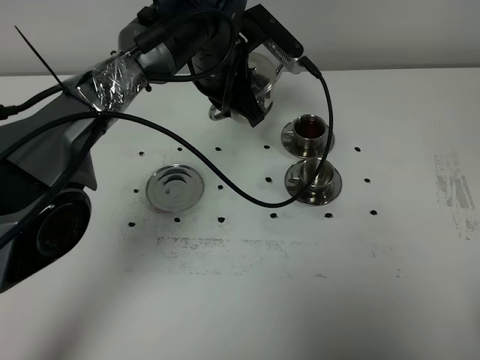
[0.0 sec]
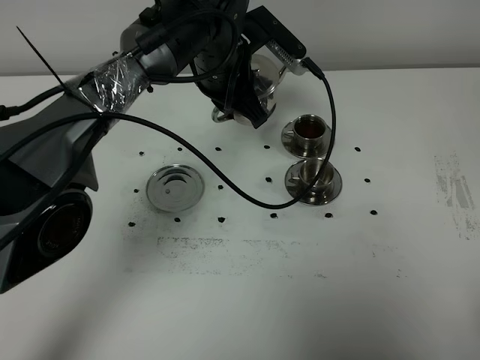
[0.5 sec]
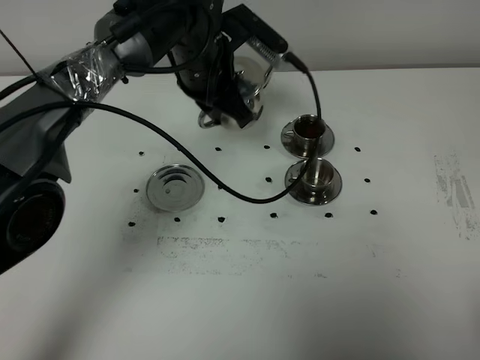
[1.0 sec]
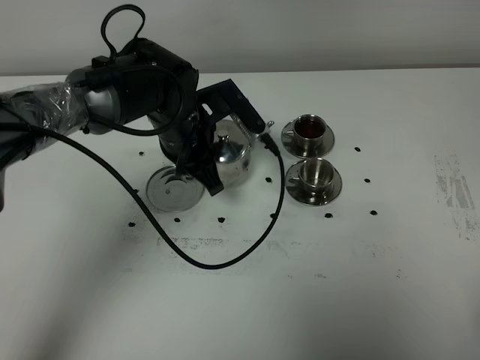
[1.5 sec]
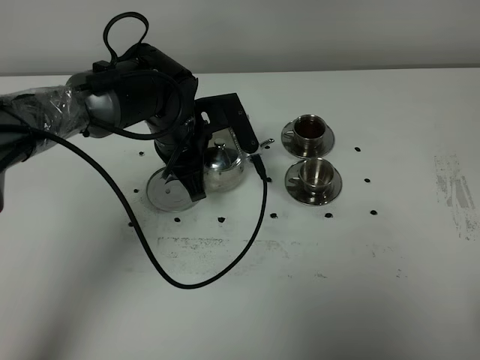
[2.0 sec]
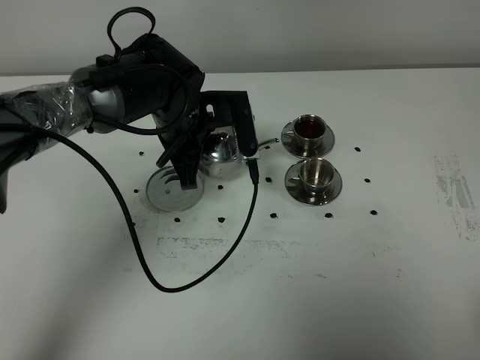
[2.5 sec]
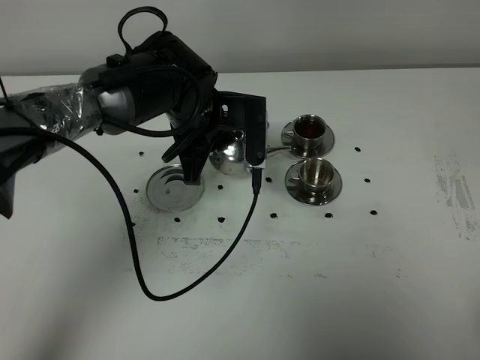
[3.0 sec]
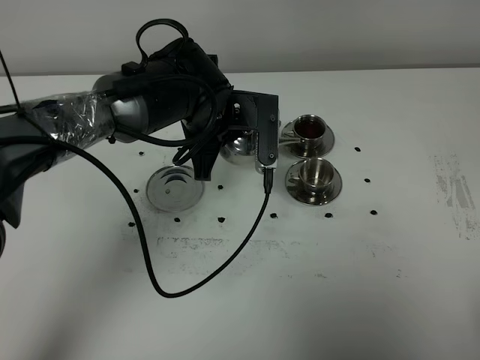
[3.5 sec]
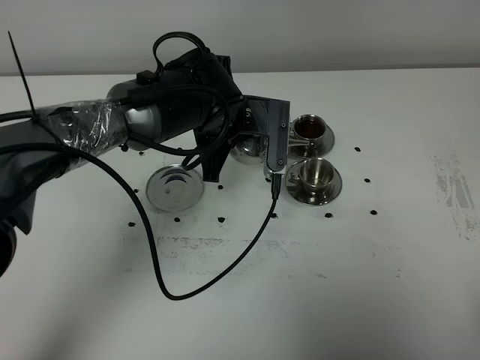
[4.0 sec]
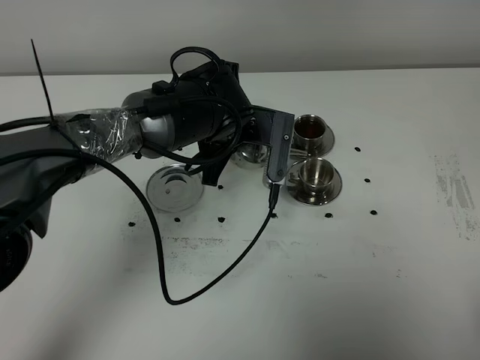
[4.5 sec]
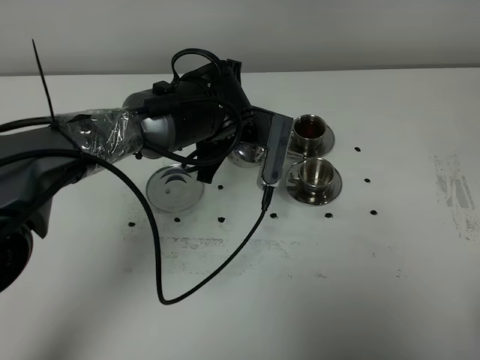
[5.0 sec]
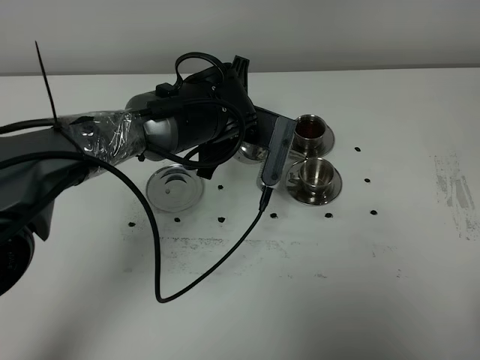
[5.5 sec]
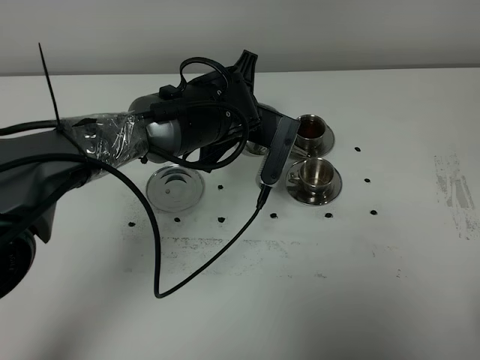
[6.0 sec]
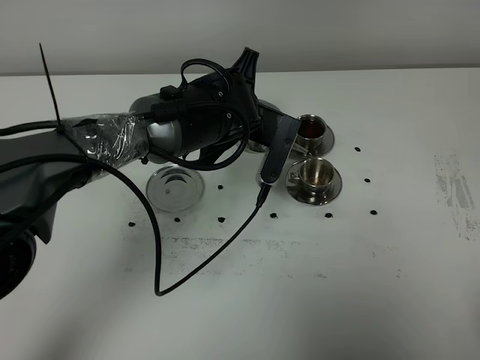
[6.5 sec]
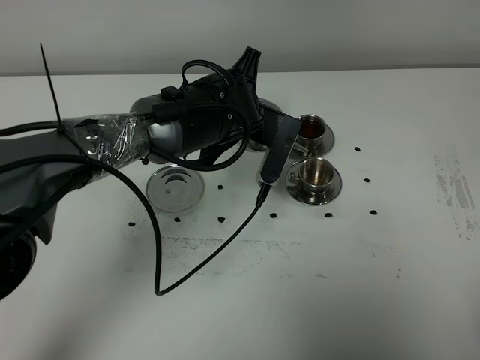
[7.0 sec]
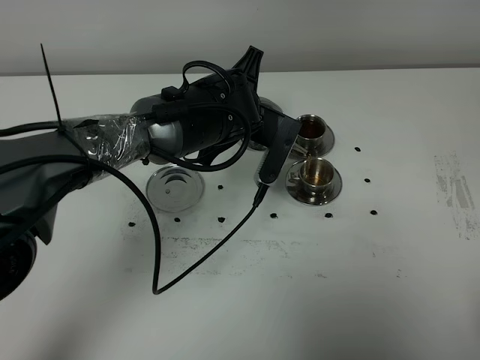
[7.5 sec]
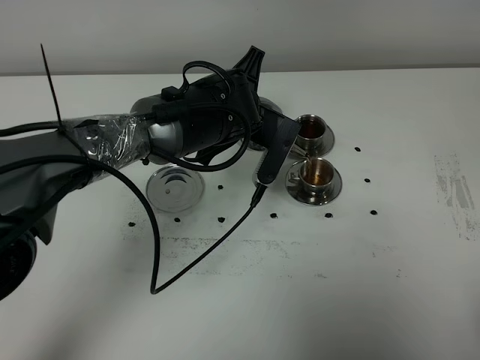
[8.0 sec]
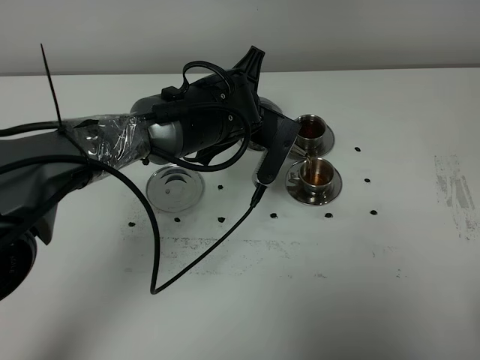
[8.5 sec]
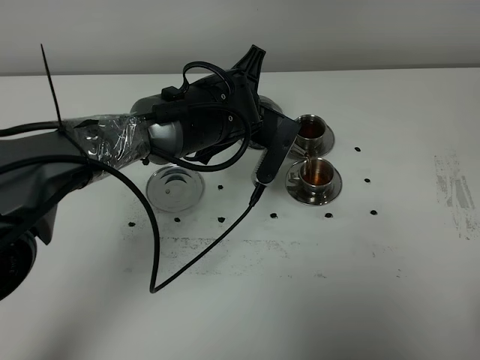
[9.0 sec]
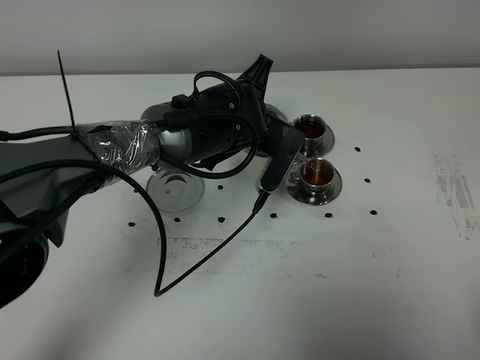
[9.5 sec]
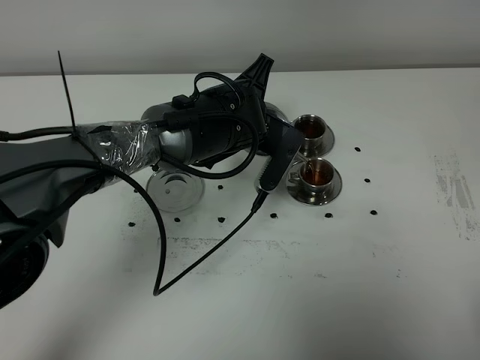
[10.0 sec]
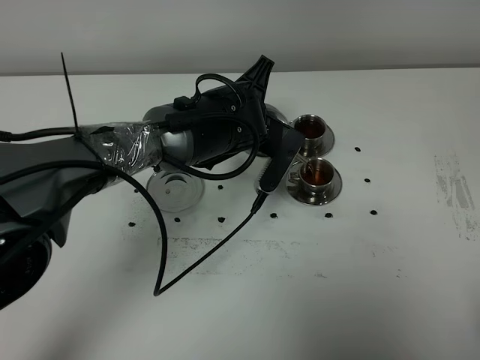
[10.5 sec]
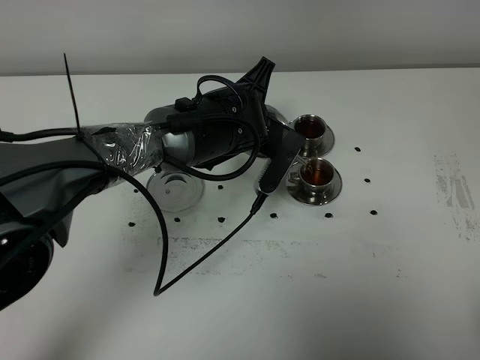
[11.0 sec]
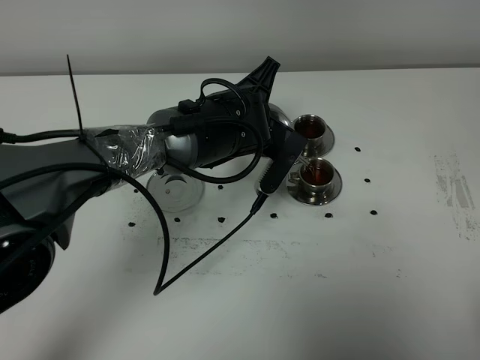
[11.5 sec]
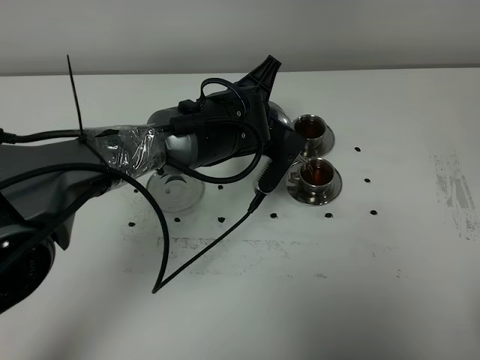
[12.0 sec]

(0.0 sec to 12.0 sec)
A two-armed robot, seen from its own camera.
Task of the whole recording: grasp the stainless steel teapot and pour the tea into the two stainless steel teacups one by one, put the stainless steel teapot back in its original place.
0.0 sec - 2.0 sec: The left gripper goes some 10 cm downward, backward and to the left.
2.0 sec - 4.0 sec: The left gripper travels to the right by approximately 5 cm.
4.0 sec - 6.0 sec: The grippers make only small movements.
6.0 sec - 8.0 sec: The grippers make only small movements.
8.0 sec - 10.0 sec: The two grippers keep their place.
10.0 sec - 12.0 sec: Both grippers stay about where they are.

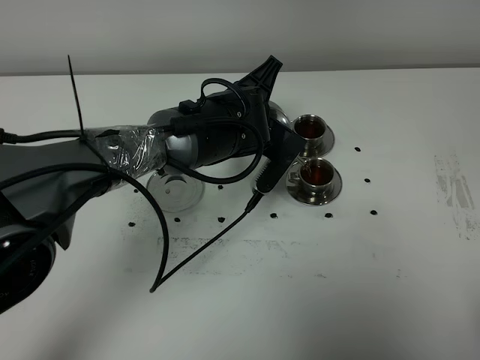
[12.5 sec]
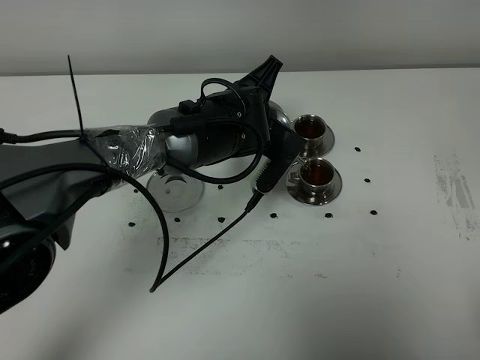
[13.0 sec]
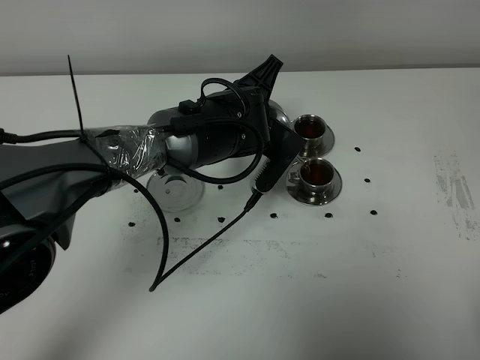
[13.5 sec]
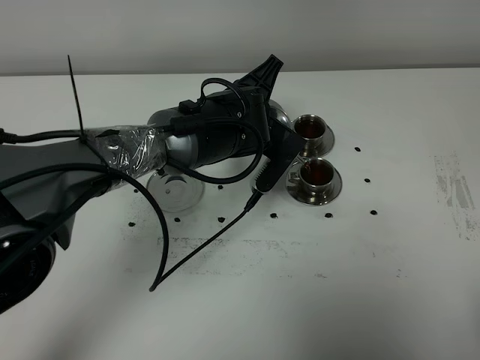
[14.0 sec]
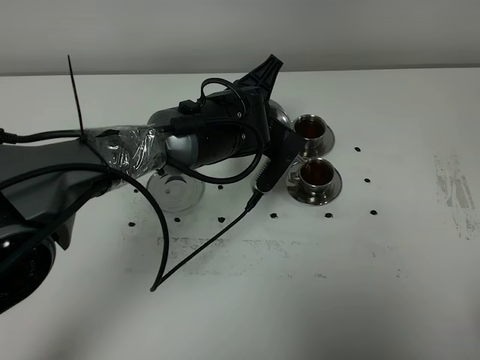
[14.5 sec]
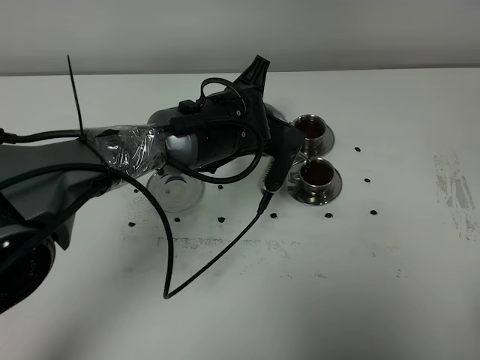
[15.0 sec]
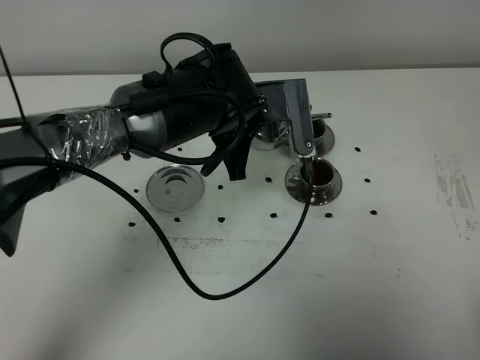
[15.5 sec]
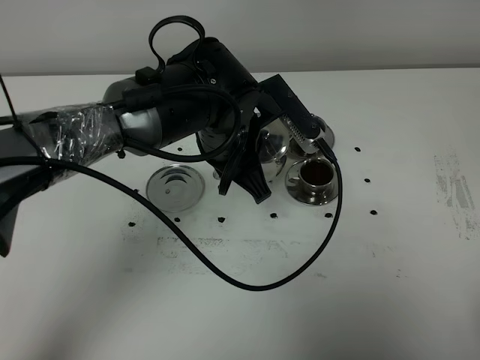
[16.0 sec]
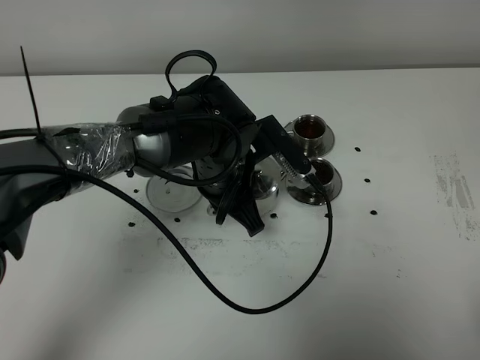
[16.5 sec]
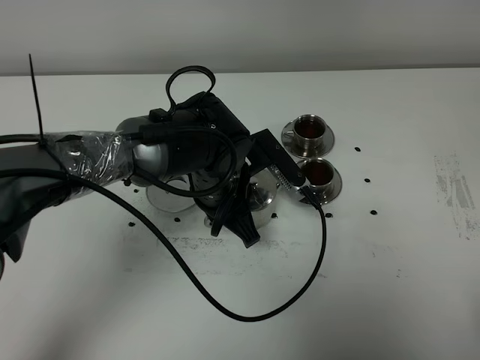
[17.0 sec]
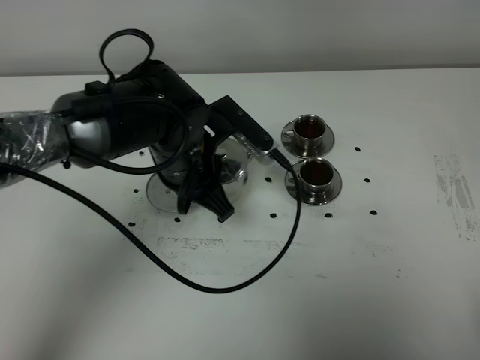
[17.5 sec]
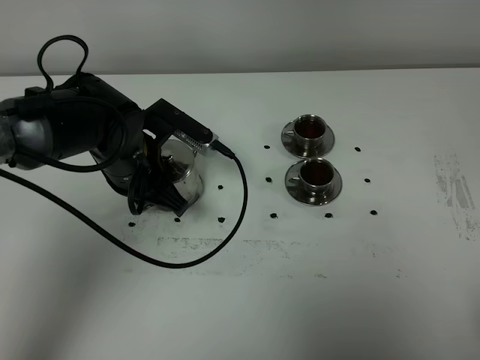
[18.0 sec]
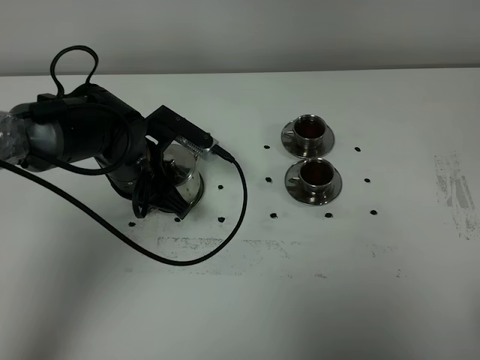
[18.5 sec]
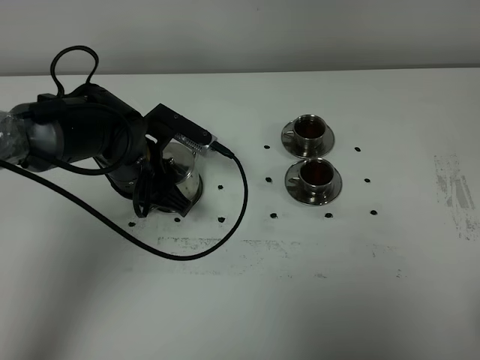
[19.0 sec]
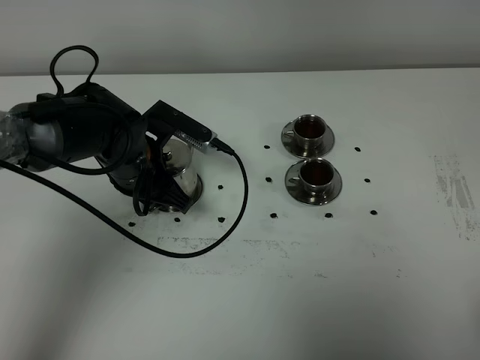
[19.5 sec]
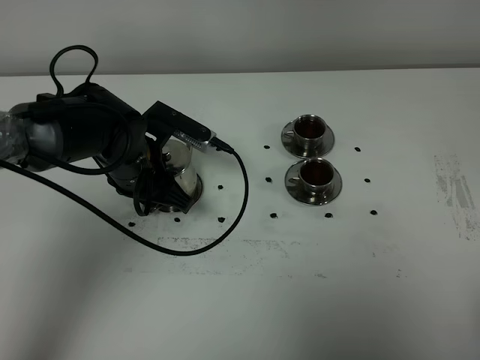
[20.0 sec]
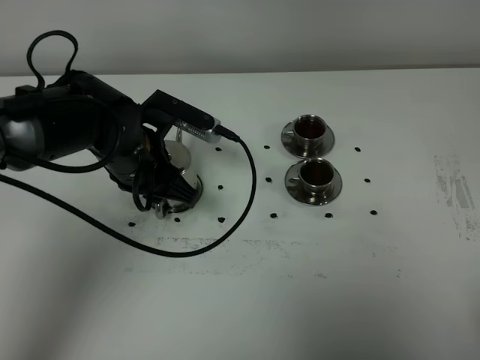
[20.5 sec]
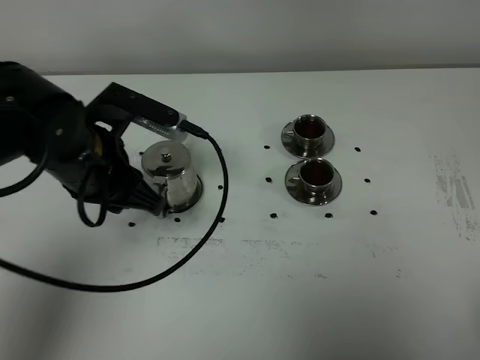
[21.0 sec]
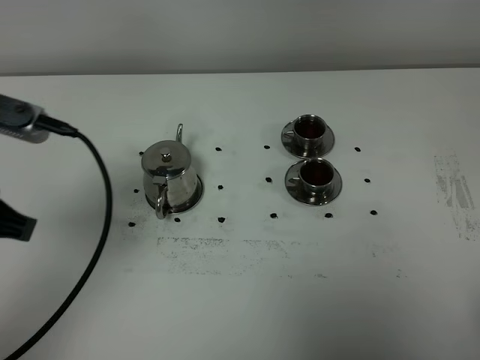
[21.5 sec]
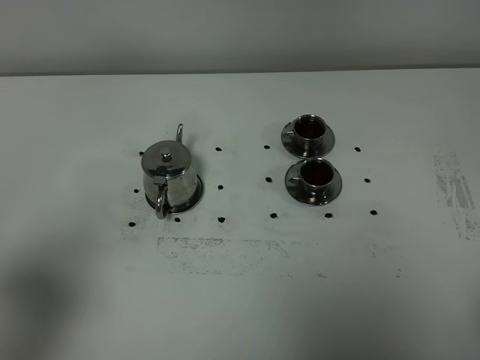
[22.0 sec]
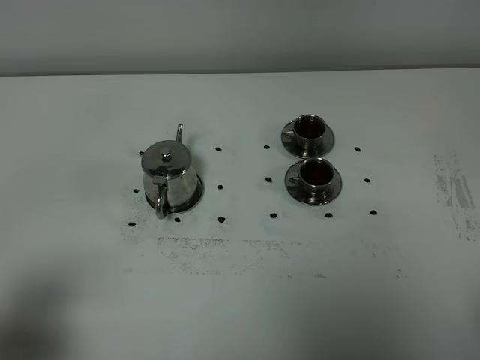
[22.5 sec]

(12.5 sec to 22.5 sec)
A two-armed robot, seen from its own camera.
Task of the whole recording: grasp the stainless steel teapot and pour the tea into the two stainless steel teacups one by one, put the stainless steel teapot back in its original place.
Step, 12.5 sec - 15.0 sec: Pour tea into the teacup with the left gripper.
12.5 sec - 14.5 sec: Both grippers stay put.
14.5 sec - 16.5 sec: The left gripper travels backward by some 5 cm.
16.5 sec - 18.5 sec: The left gripper goes some 10 cm to the left.
18.5 sec - 20.5 sec: The grippers make only small movements.
20.5 sec - 22.5 sec: The left gripper shifts approximately 35 cm backward and to the left.

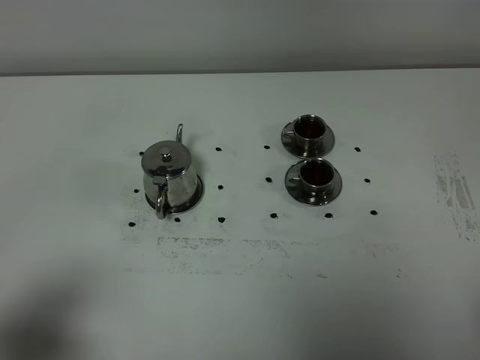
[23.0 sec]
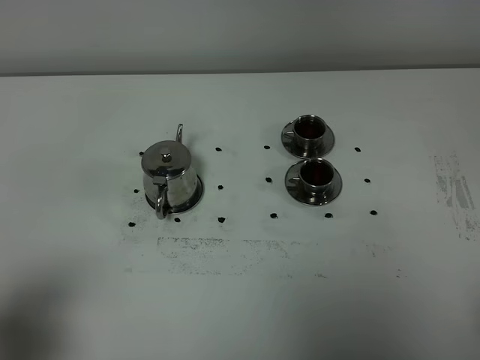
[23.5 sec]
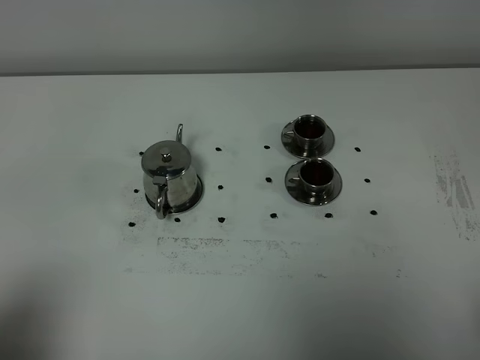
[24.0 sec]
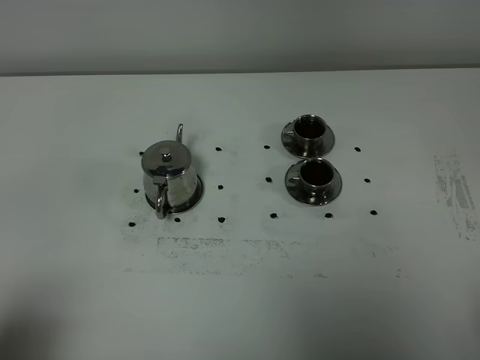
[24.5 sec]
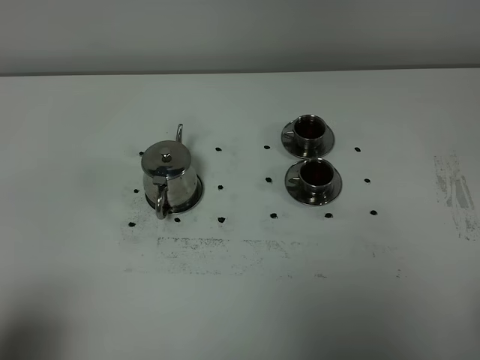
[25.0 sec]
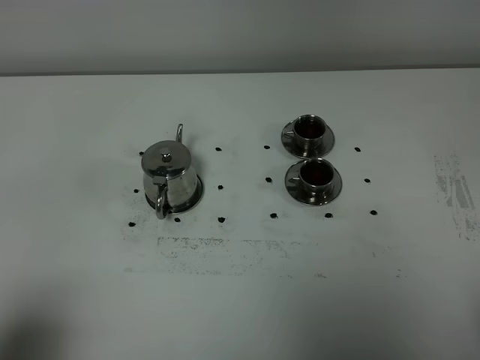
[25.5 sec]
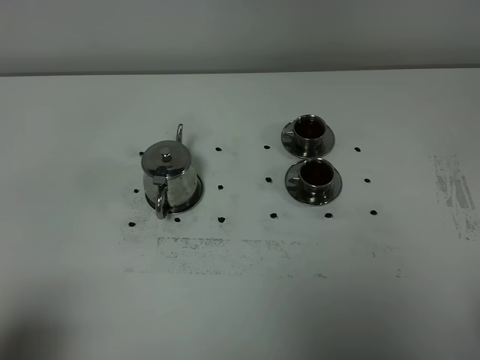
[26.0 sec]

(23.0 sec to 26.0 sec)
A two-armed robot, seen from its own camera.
Task of the whole recording: grasp the stainless steel teapot and pour the tea into the two stainless steel teacups one by one, put the stainless steel teapot back in its original place.
23.0 sec - 24.5 sec: The left gripper shifts by about 5 cm.
